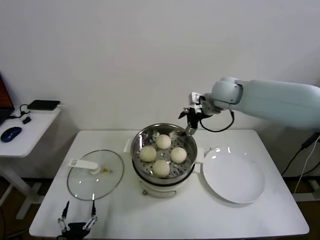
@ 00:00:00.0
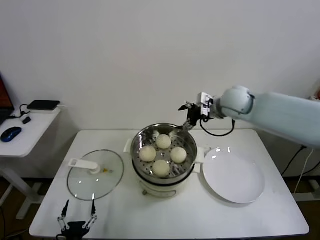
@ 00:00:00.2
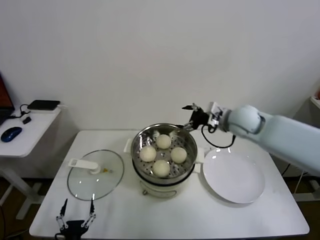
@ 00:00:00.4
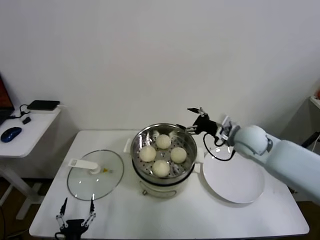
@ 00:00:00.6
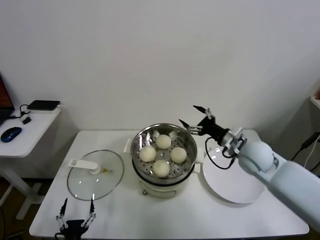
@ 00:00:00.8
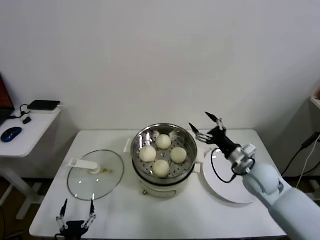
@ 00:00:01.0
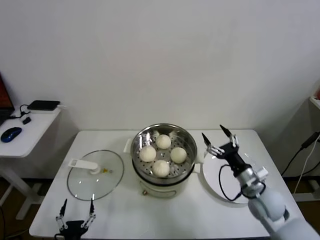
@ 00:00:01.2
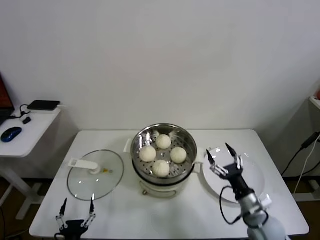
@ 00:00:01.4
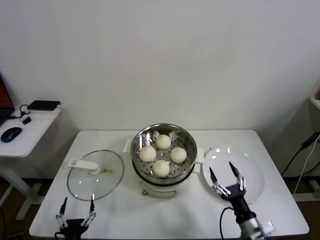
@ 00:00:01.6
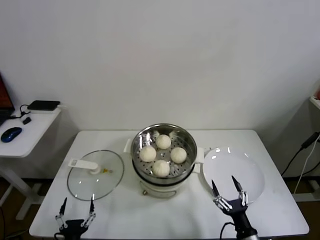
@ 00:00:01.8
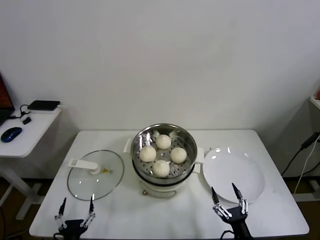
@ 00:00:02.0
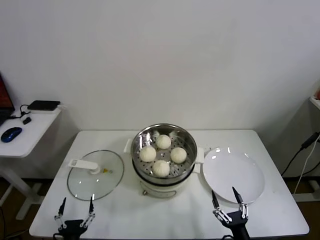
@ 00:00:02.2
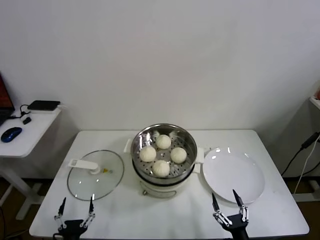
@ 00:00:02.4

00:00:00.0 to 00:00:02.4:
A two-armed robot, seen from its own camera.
Task of the whole recording: take steamed baozi put them in steamer.
00:00:00.0 to 00:00:01.2: The right gripper is displaced downward, backward and to the right by roughly 35 cm.
00:00:01.2 to 00:00:02.4: The right gripper heads backward and downward, covering about 25 cm.
